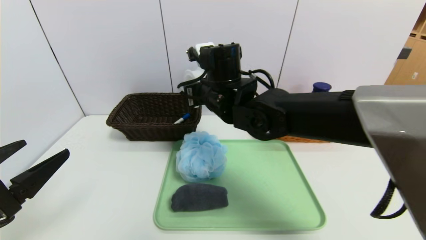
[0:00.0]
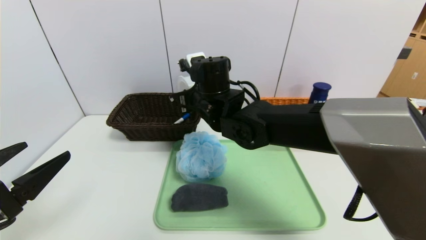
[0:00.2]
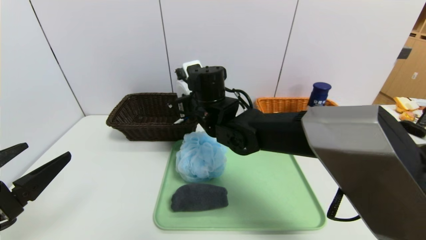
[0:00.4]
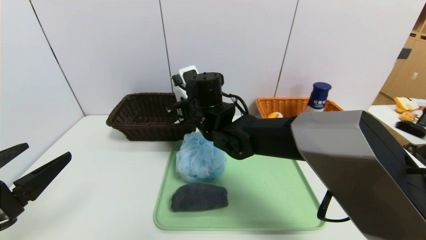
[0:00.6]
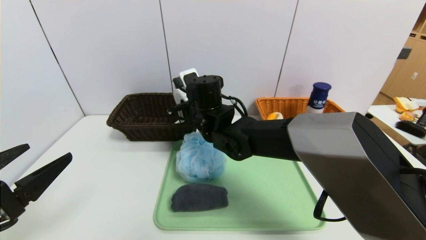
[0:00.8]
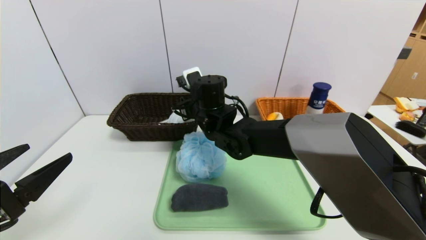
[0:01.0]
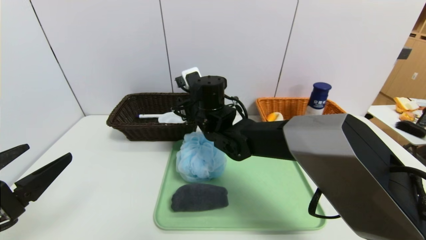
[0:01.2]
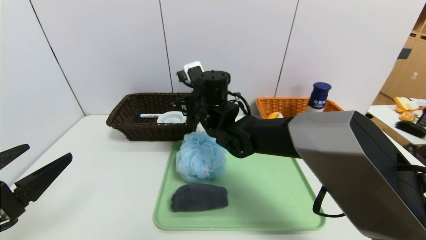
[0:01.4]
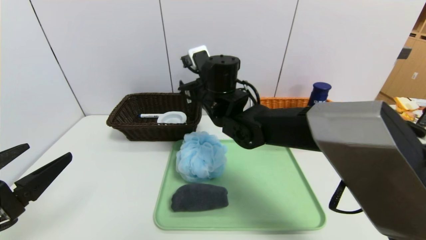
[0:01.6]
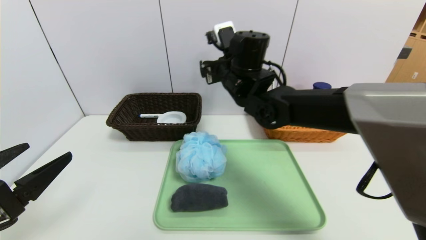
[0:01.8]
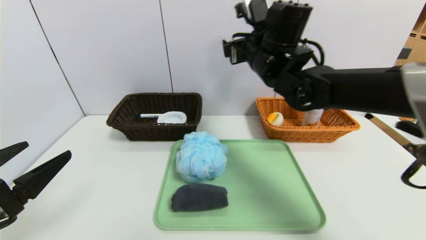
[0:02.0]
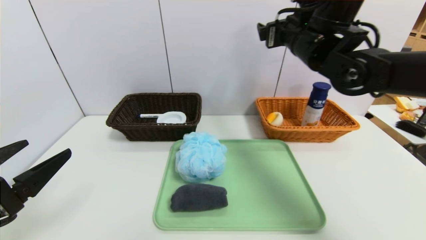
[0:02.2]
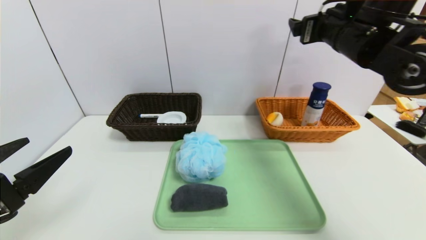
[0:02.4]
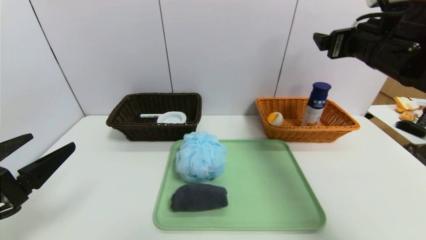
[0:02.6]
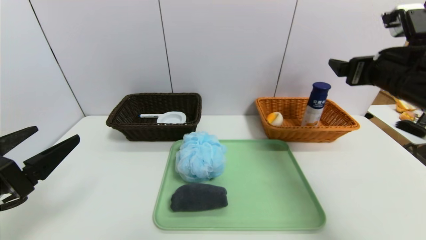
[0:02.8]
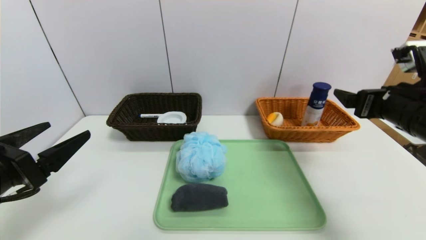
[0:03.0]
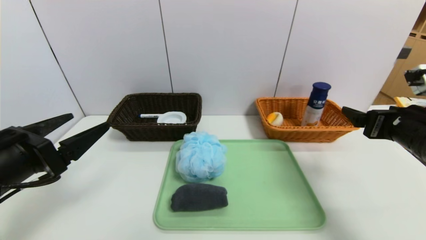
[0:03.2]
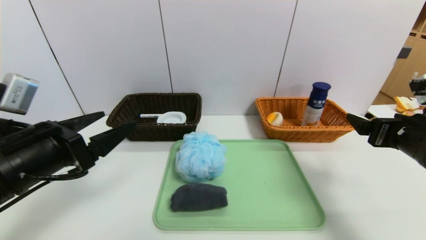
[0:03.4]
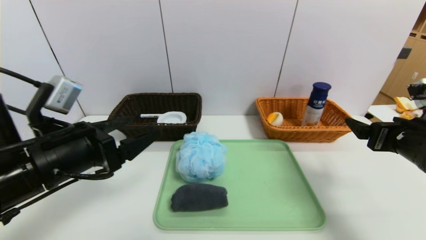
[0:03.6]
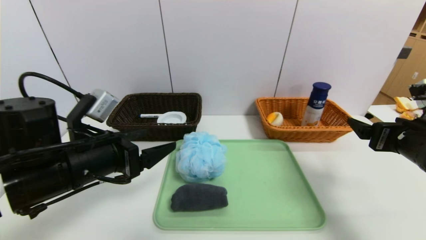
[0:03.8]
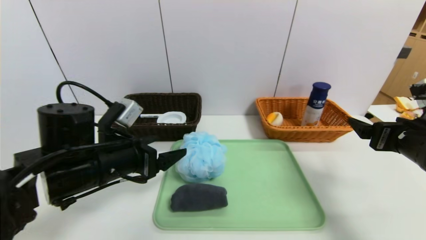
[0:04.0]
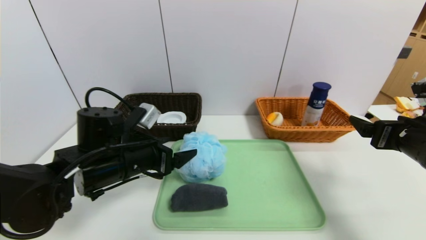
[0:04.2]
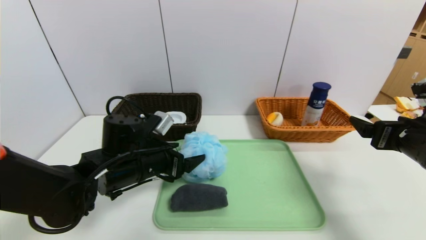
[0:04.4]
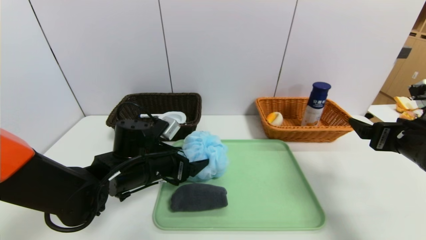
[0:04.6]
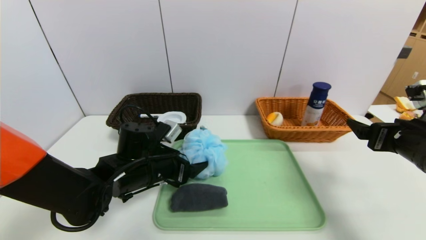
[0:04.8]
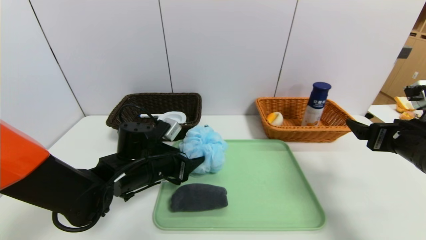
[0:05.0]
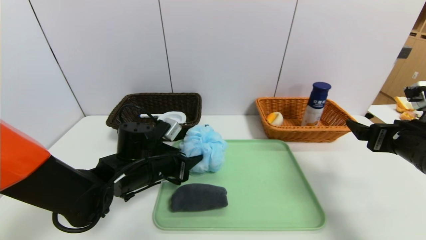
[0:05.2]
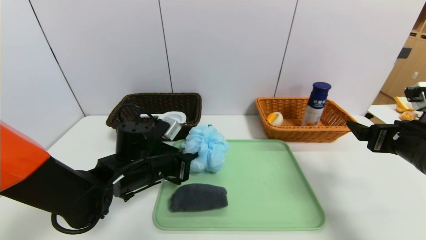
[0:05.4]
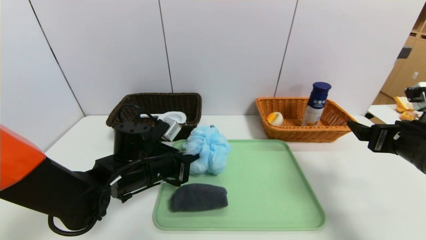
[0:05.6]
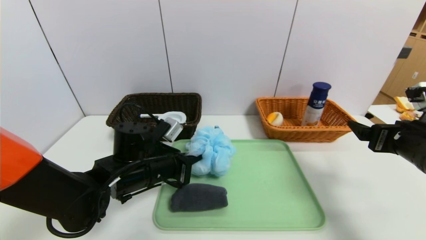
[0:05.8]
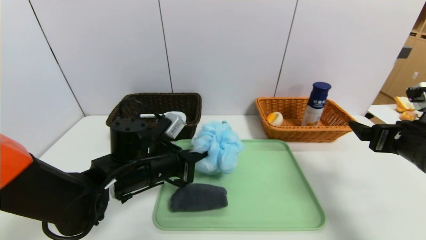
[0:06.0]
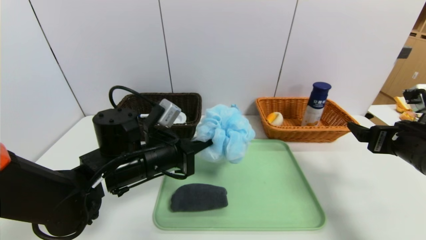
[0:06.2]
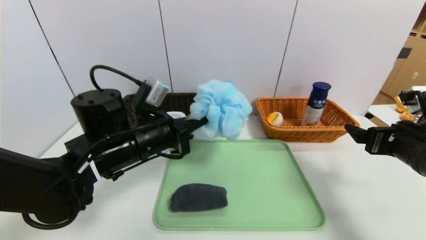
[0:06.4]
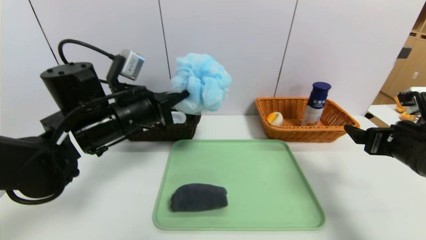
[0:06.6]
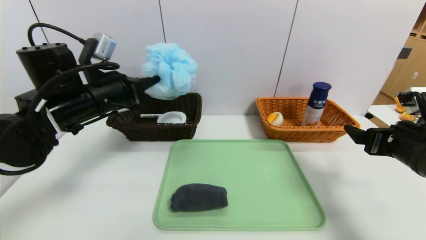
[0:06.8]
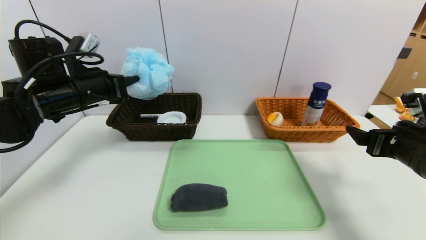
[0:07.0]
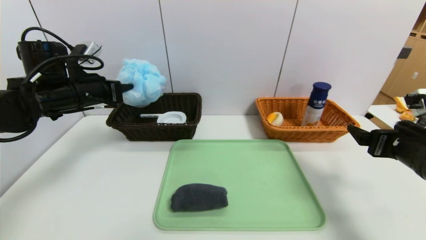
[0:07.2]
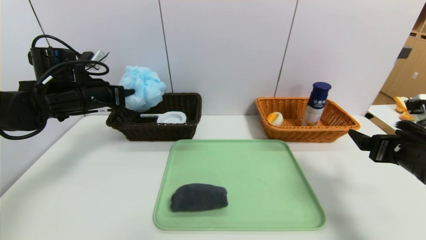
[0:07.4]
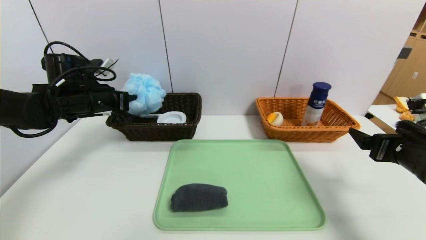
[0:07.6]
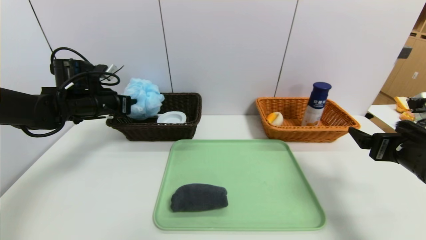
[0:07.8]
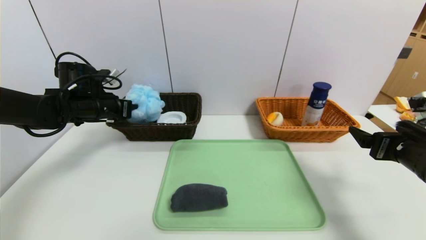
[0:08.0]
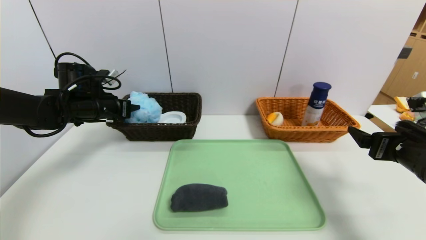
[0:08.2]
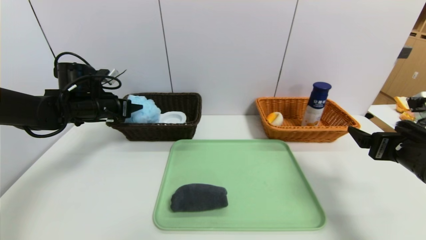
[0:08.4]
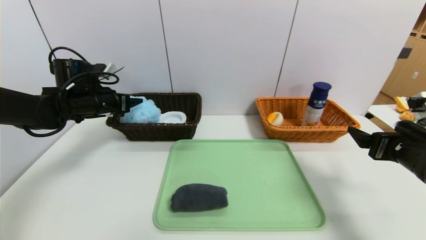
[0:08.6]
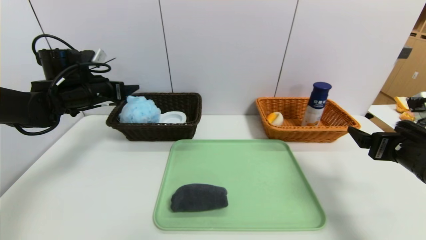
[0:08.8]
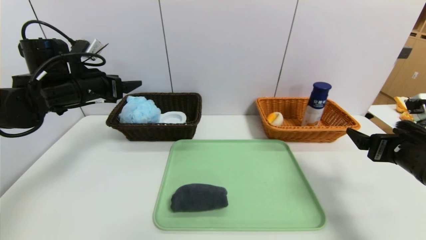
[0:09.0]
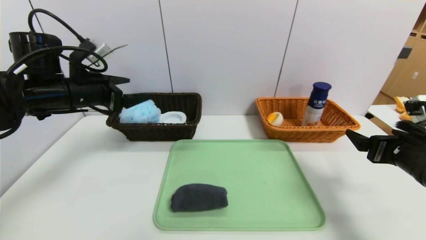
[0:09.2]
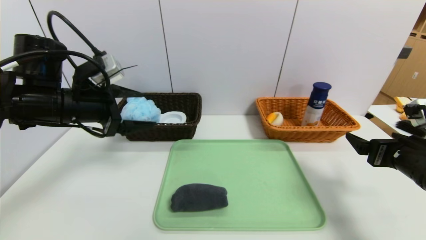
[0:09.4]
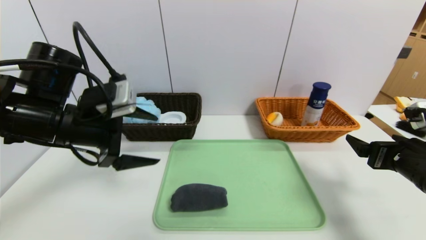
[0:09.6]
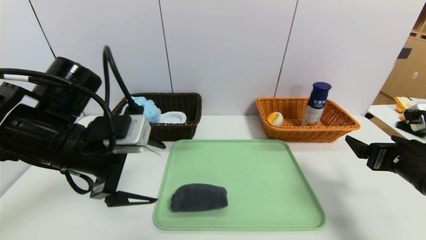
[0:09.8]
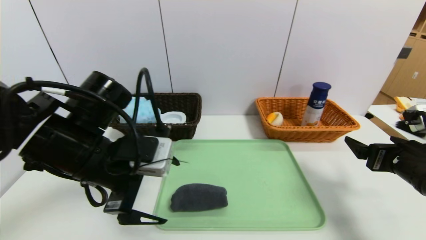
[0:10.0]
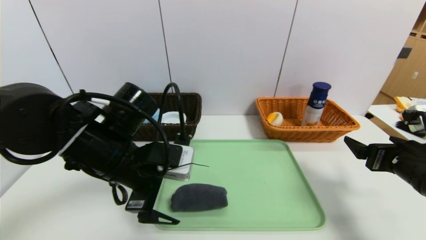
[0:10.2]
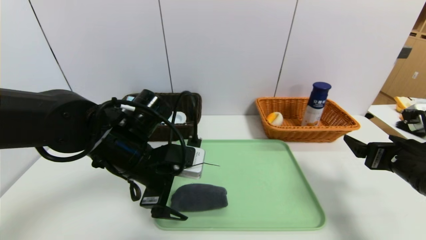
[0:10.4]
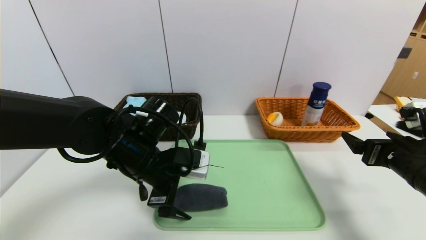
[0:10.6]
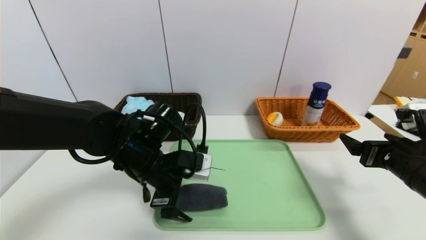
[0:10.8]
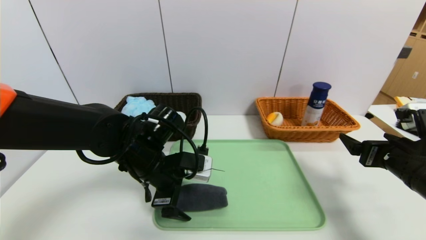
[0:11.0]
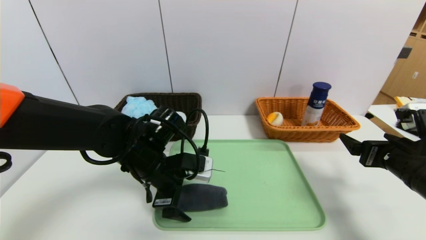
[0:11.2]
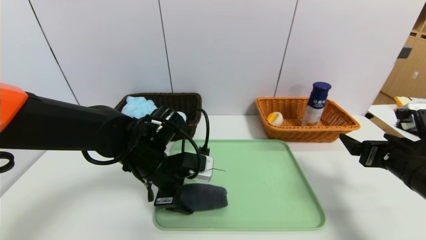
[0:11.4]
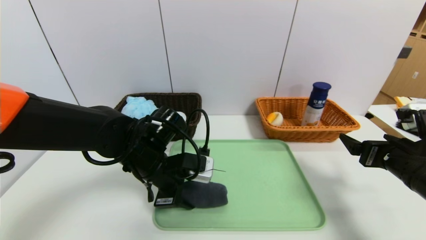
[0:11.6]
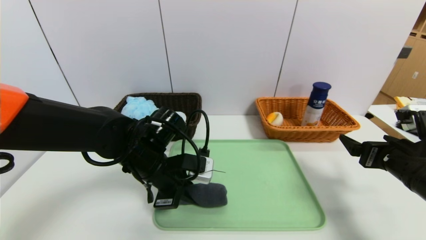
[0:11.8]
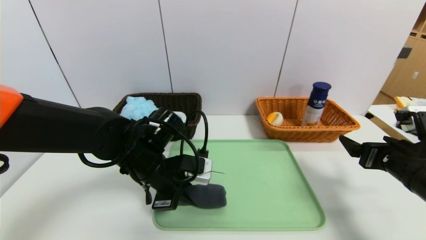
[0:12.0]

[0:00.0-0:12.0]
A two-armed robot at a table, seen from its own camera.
Task of the whole recording: place the food in the right basket with the right gripper, and place the non food items in the left basket with the left gripper.
Step, 0:01.6 to 0:08.6: Grasp the bath ball and put it in the left basket.
0:00.0 to 0:01.6: The right gripper opens.
0:01.6 to 0:03.0: The right gripper heads to the right and backward, covering approximately 35 cm.
0:03.0 to 0:04.4: The right gripper changes place by about 5 cm. The left gripper travels to the right, forward and downward by about 20 cm.
0:04.4 to 0:06.0: The left gripper closes its fingers.
0:06.0 to 0:07.6: The left gripper heads to the left, forward and upward, covering roughly 20 cm.
0:07.6 to 0:09.0: The left gripper opens.
0:09.0 to 0:10.4: The left gripper goes about 20 cm to the right, backward and downward.
0:10.4 to 0:12.0: The left gripper closes.

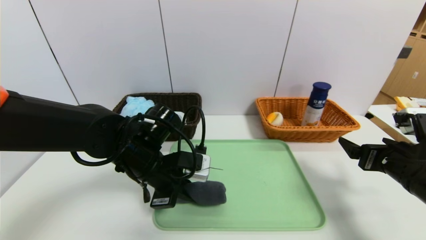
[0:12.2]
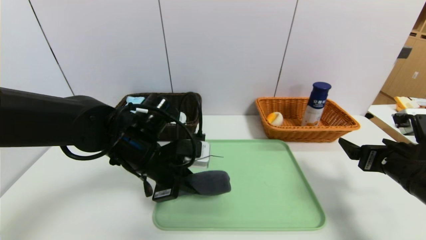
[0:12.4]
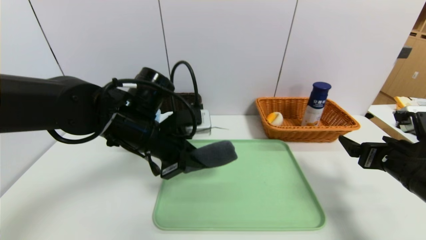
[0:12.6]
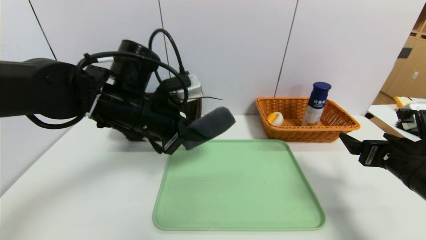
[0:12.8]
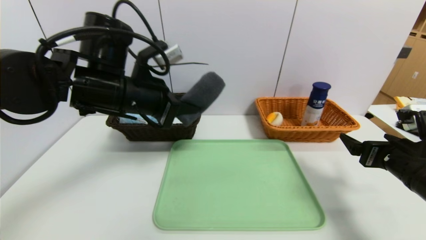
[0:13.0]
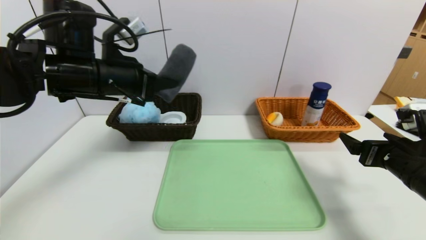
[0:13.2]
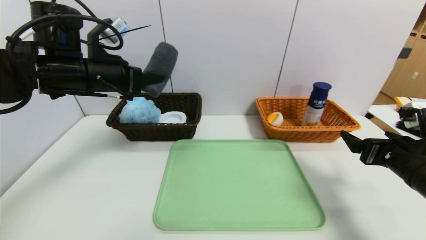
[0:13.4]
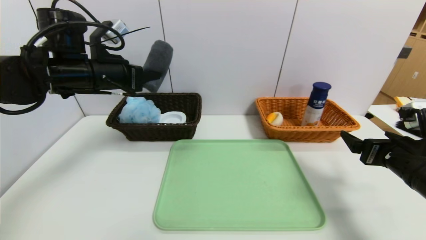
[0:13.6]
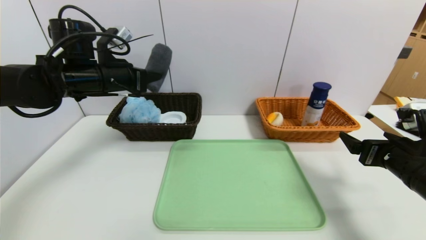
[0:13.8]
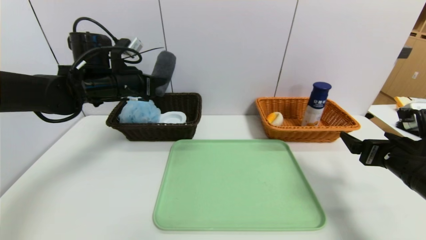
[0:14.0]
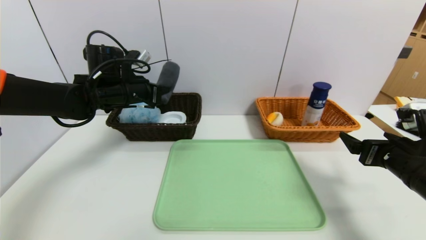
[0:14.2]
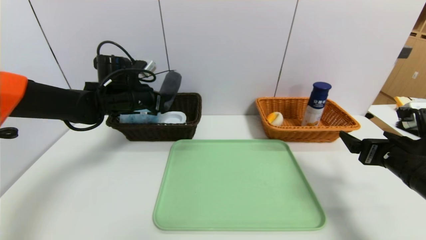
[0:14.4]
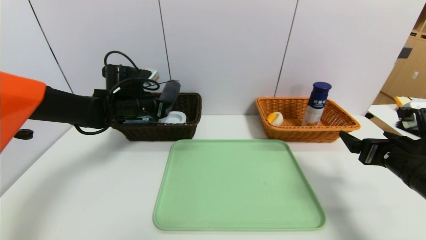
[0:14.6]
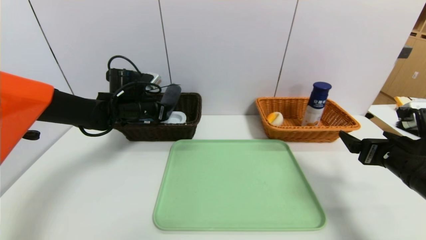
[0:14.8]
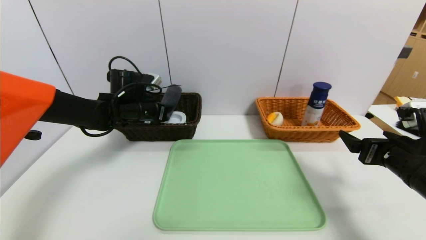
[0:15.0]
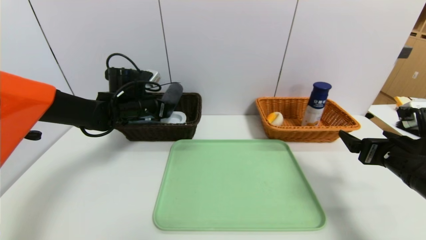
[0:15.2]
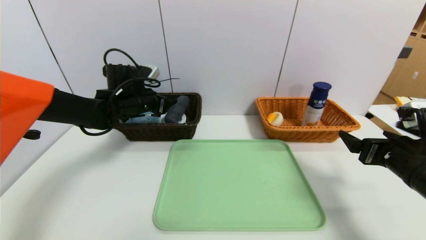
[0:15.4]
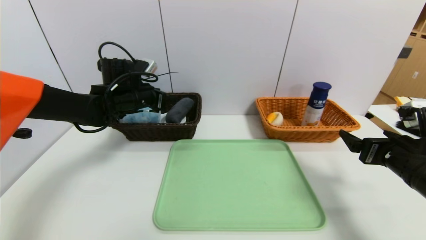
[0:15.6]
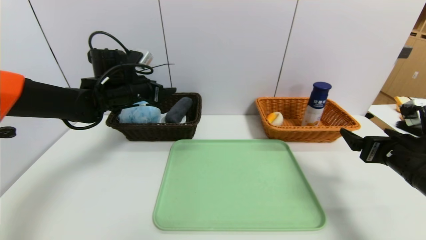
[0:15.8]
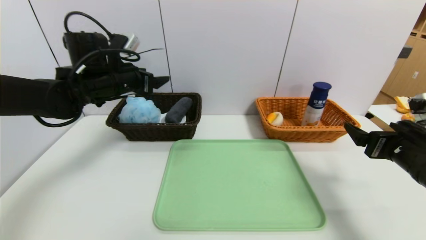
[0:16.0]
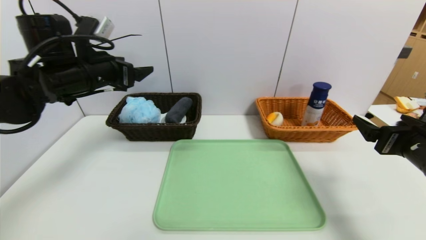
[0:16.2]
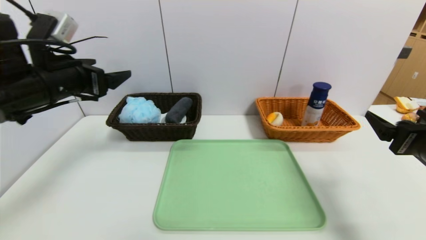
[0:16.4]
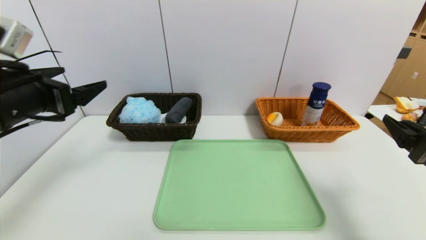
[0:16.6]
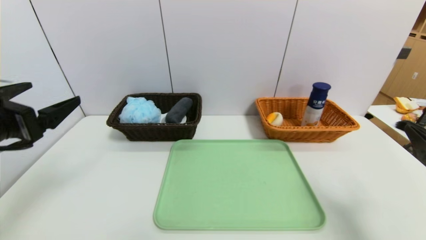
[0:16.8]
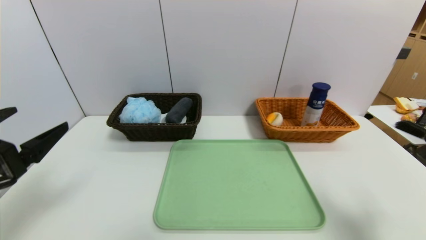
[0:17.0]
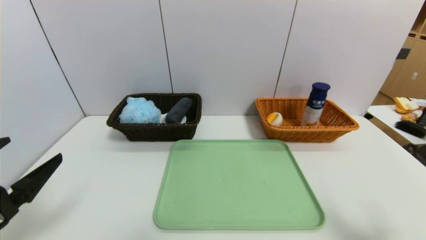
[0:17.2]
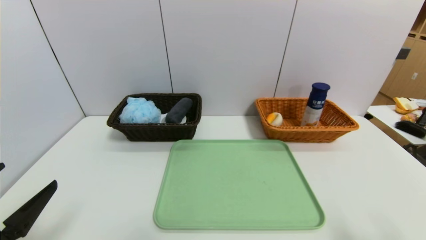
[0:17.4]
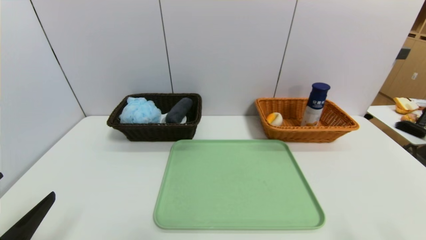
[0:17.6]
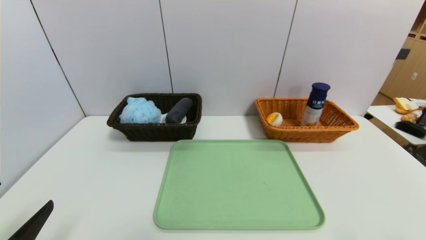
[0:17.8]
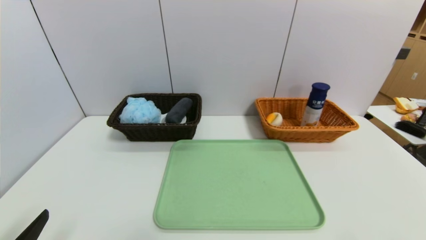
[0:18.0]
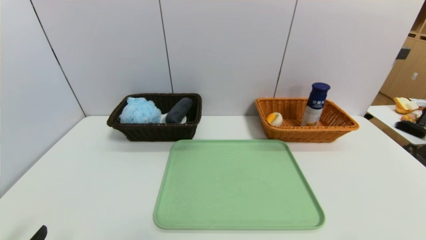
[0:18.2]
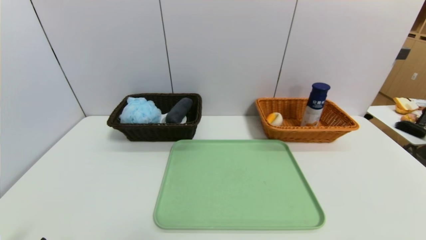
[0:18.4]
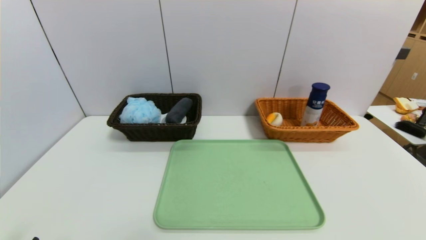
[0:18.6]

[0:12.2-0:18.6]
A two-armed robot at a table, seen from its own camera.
Task of the whole recording: place the food in the right basket with the right gripper, and place the non food items in the left basket with the left gripper.
Step, 0:12.2 to 0:15.8: Grasp the grey towel and put it in the left basket.
0:12.2 to 0:13.8: The left gripper is displaced upward, to the left and forward by some 20 cm.
0:13.8 to 0:15.4: The left gripper goes approximately 10 cm downward and forward, and opens up.
0:15.4 to 0:17.0: The right gripper moves backward, about 10 cm. Meanwhile the left gripper goes approximately 30 cm backward, and opens.
0:17.0 to 0:18.6: The grippers both shift backward and downward by approximately 15 cm.
